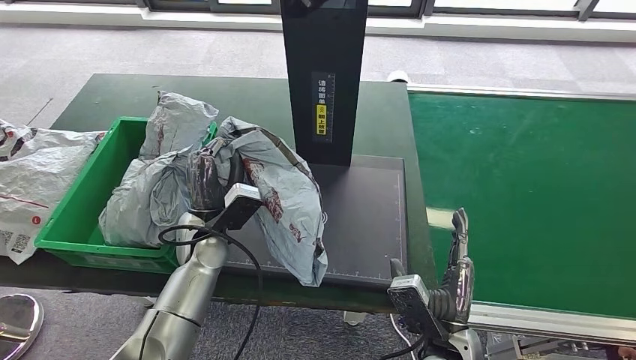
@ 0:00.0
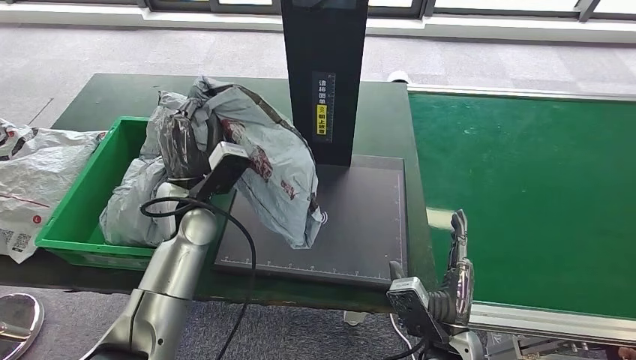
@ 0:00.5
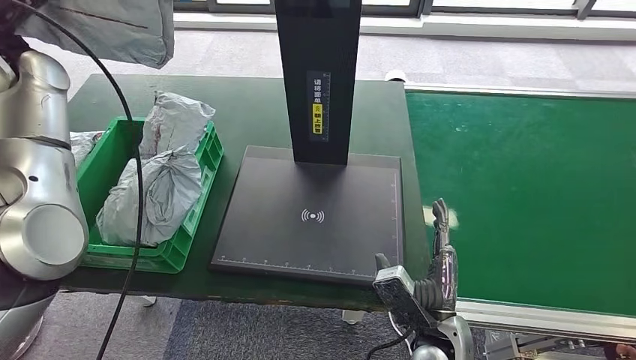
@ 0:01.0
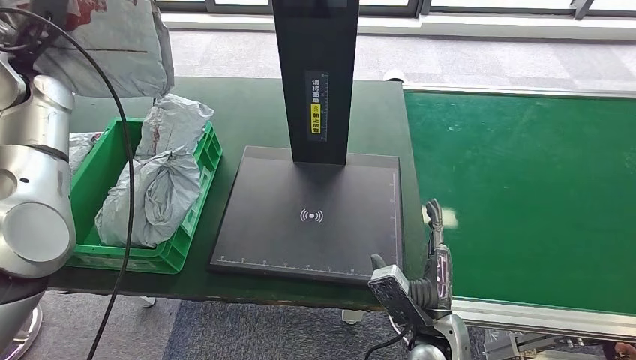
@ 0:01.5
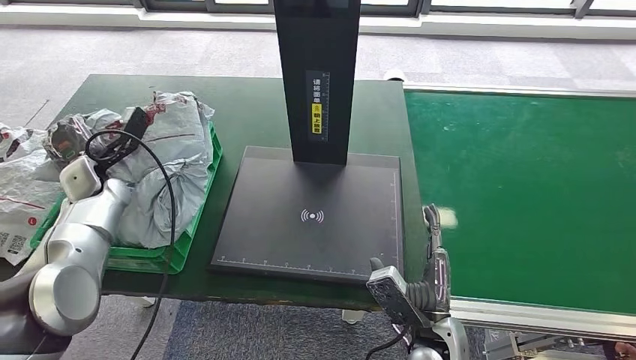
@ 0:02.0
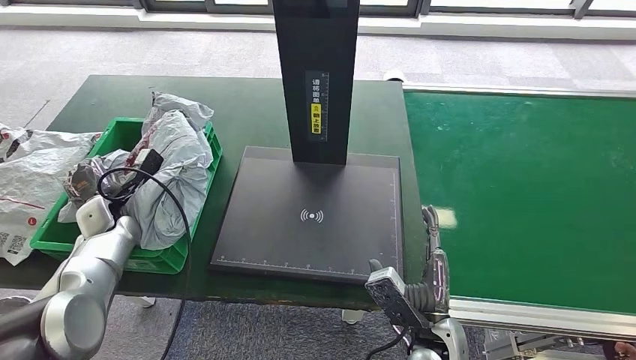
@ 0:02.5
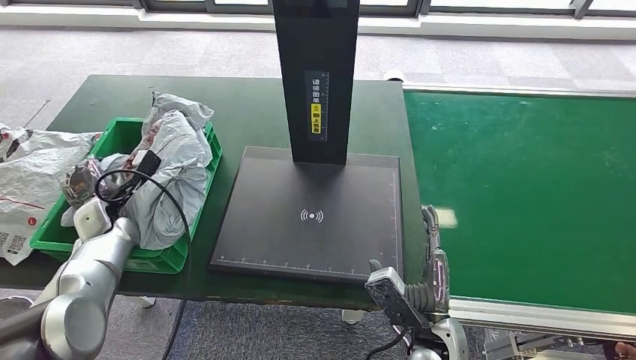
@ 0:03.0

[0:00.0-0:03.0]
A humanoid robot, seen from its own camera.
Step, 0:00.0 to 0:03.0: Place the parcel into the delivery box.
